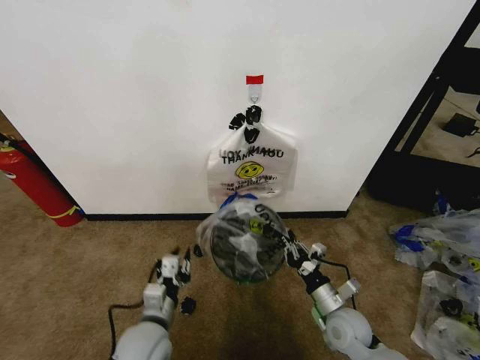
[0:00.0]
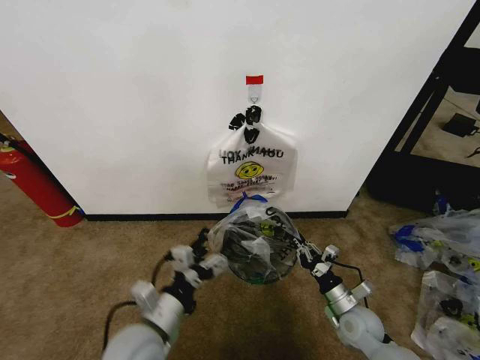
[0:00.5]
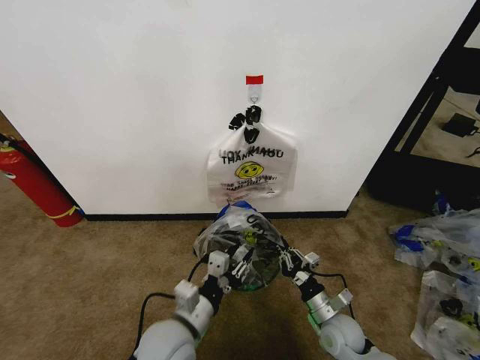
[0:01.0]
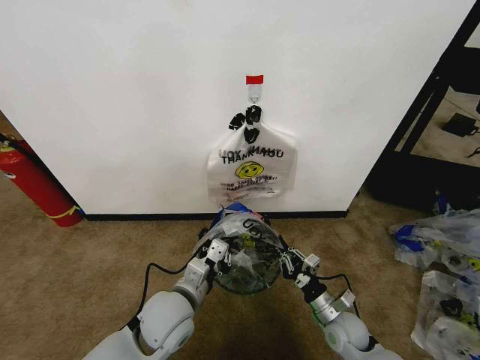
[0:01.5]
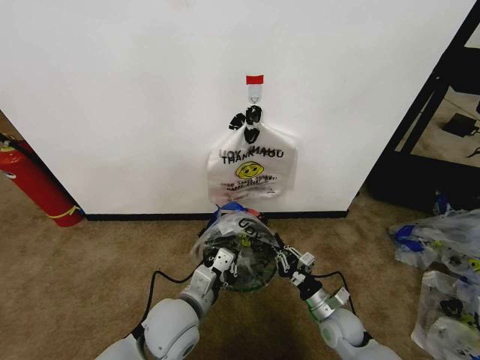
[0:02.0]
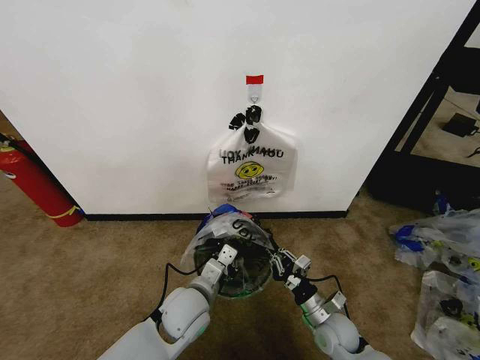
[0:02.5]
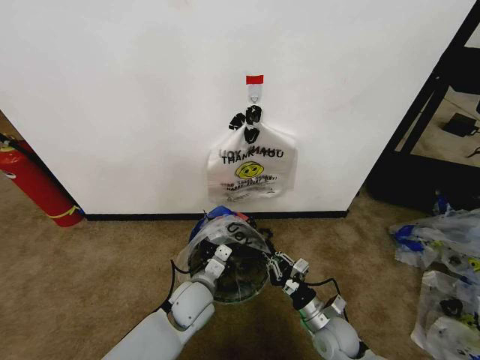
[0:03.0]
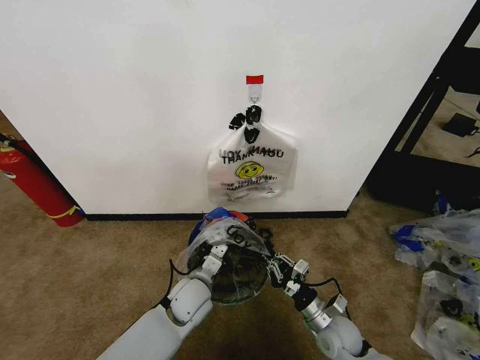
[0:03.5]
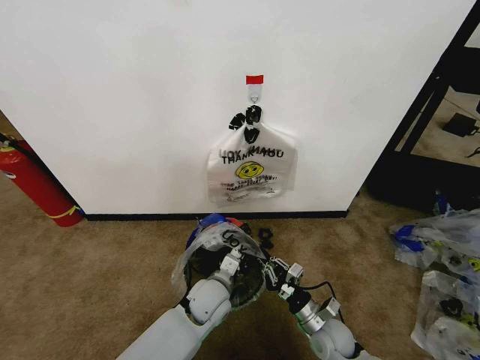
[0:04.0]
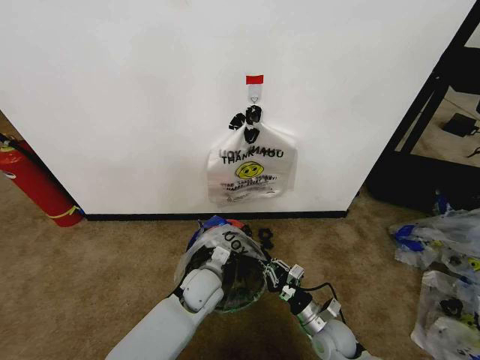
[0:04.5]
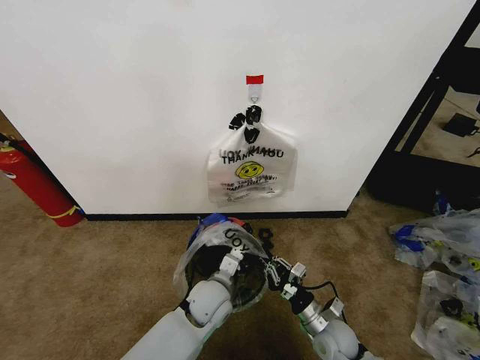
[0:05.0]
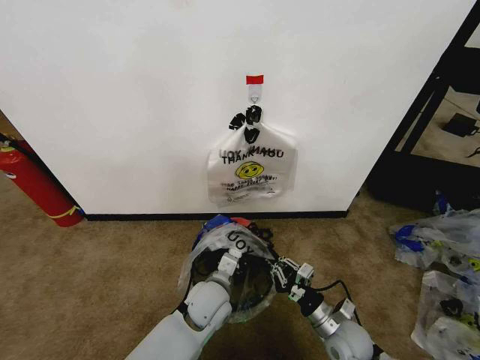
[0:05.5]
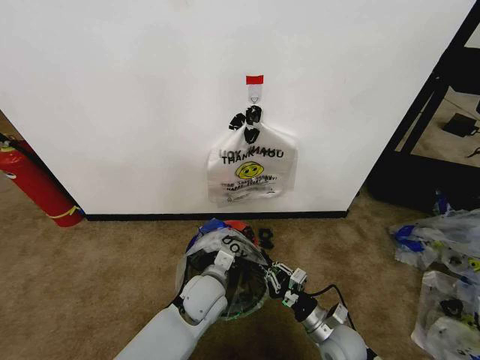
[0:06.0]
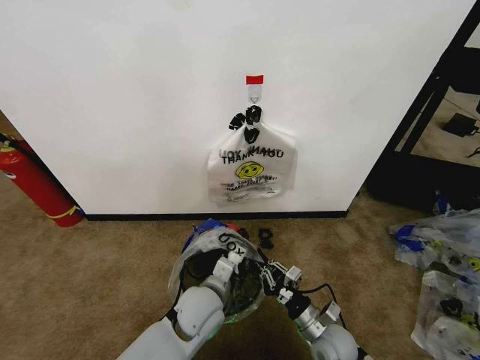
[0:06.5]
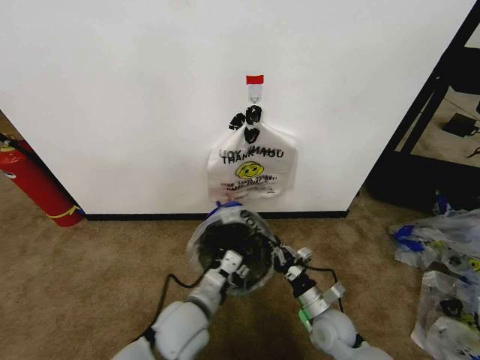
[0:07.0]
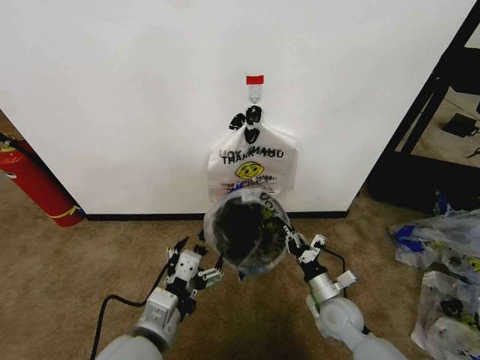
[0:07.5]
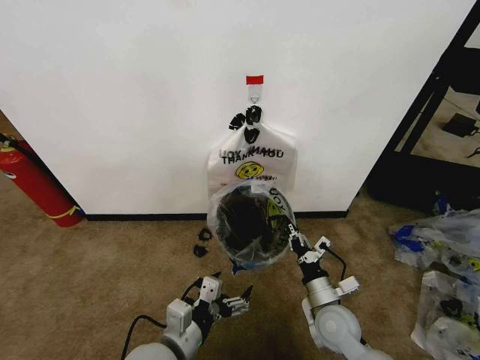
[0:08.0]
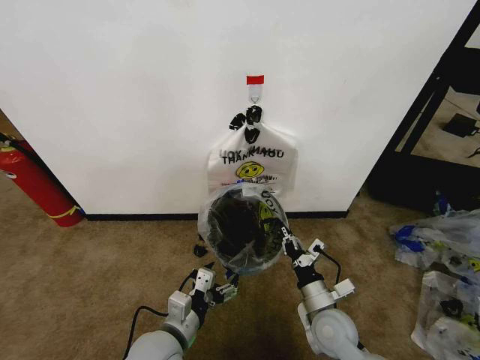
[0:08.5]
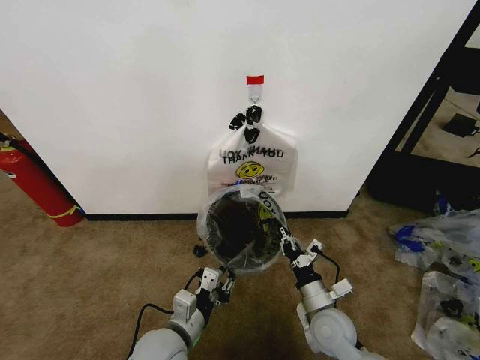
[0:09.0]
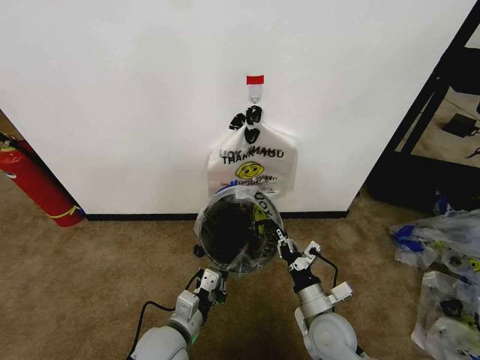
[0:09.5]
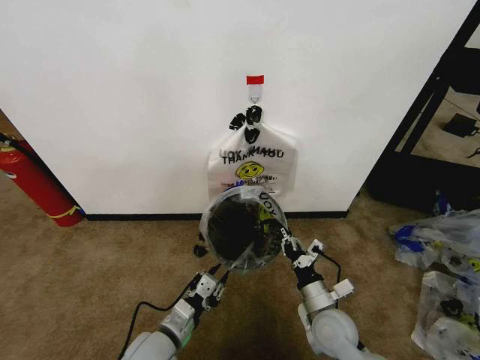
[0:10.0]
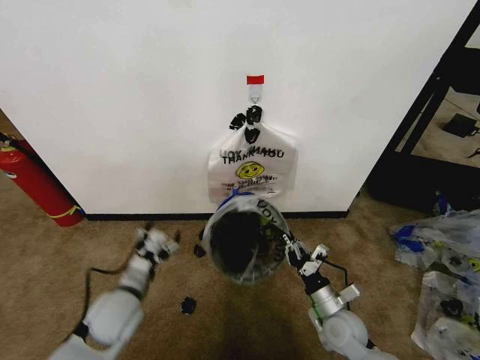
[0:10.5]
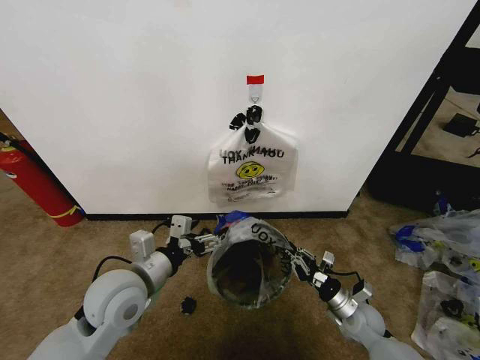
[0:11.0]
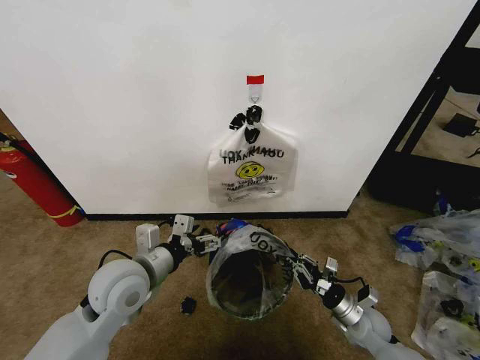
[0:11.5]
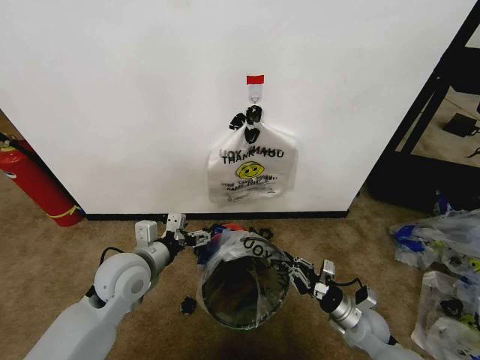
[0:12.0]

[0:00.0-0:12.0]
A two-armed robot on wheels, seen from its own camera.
Task of the whole recording: Pick up the garbage bag from the wall and place it over the trash bin.
0:00.0 to 0:02.0: The left gripper heads to the right and upward, covering roughly 10 cm, and opens, then closes again.
0:02.0 to 0:04.0: The left gripper shifts approximately 15 cm downward, forward and to the right.
0:04.0 to 0:06.0: The grippers make only small movements.
0:06.0 to 0:08.0: The left gripper moves backward and to the left, some 15 cm, and opens up; the right gripper changes place by some 5 cm.
0:08.0 to 0:10.0: The left gripper heads downward, covering some 5 cm, and closes its fingers.
0:10.0 to 0:12.0: The right gripper moves to the right and downward, some 10 cm. The left gripper shifts about 15 cm upward, forward and to the left, and opens up.

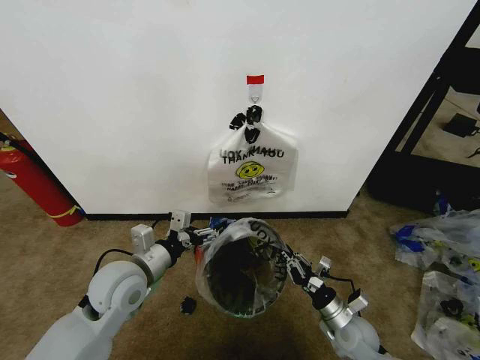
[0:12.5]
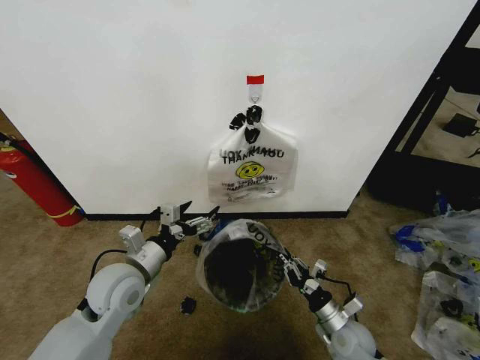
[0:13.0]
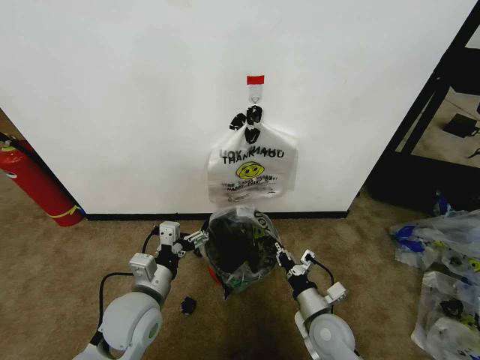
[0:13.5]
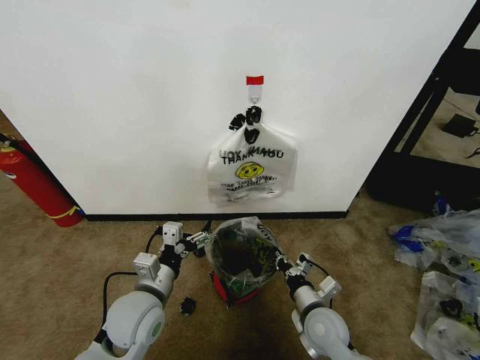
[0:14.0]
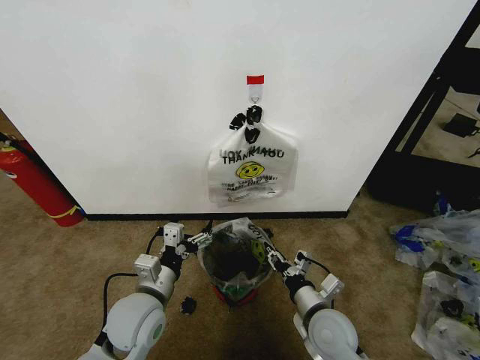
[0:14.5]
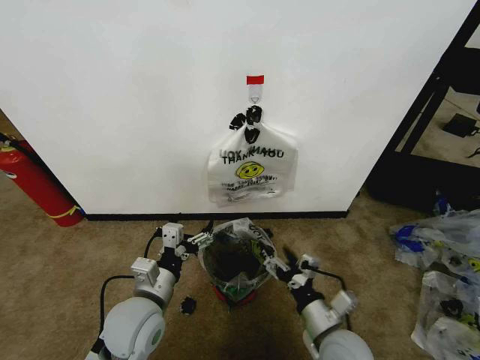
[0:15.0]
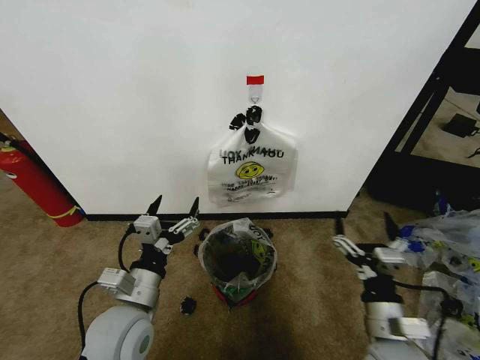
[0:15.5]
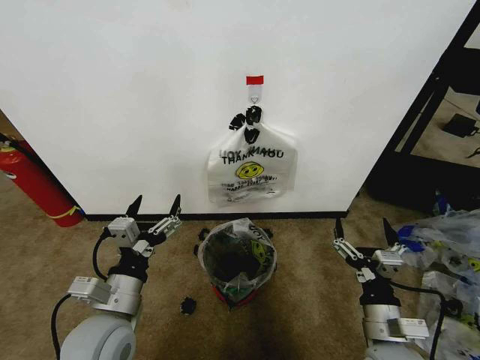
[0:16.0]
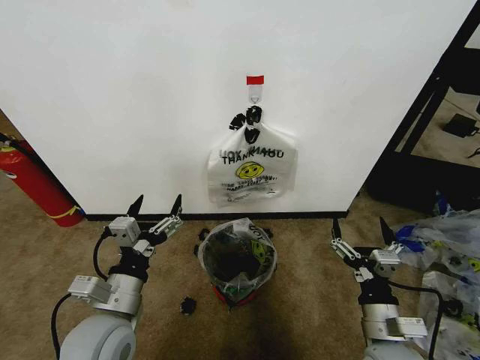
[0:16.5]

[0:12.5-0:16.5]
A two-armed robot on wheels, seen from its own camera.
Task of the whole recording: Pick up the garbage bag from the wall and place it over the trash bin.
0:12.5 to 0:14.5: The right gripper heads upward and to the left, covering roughly 15 cm, and opens; the left gripper ends up approximately 5 cm from where it was.
0:14.5 to 0:16.5: The left gripper travels backward and upward by about 5 cm. The right gripper is displaced to the right and backward by some 10 cm, and opens up.
